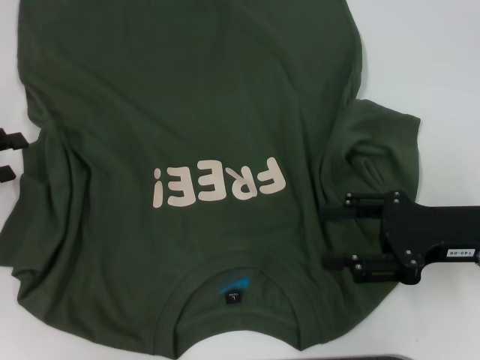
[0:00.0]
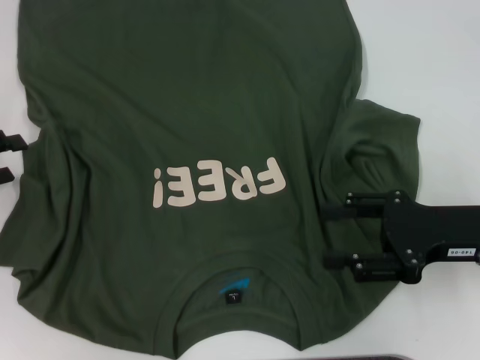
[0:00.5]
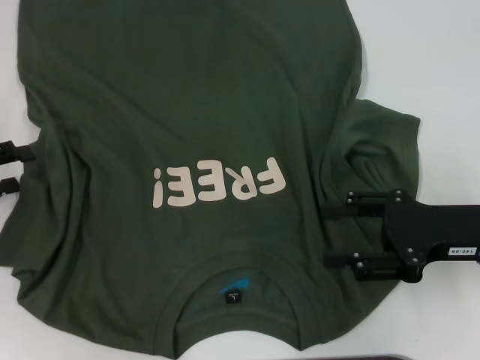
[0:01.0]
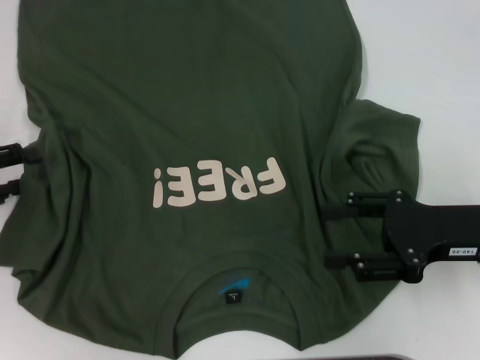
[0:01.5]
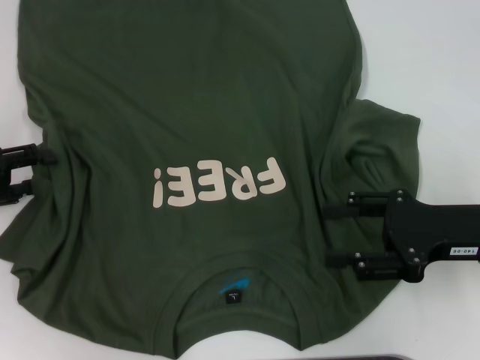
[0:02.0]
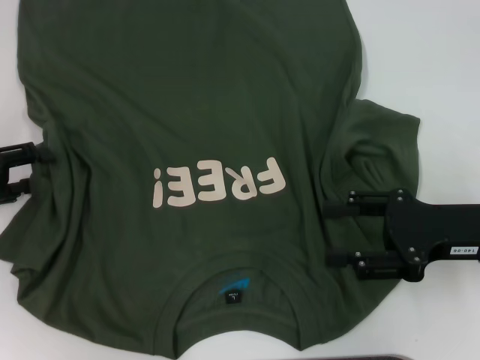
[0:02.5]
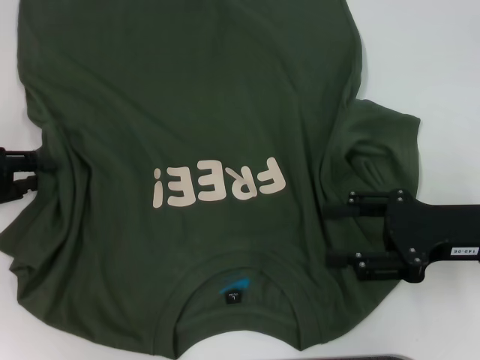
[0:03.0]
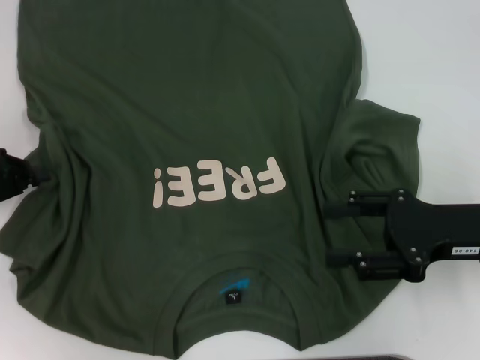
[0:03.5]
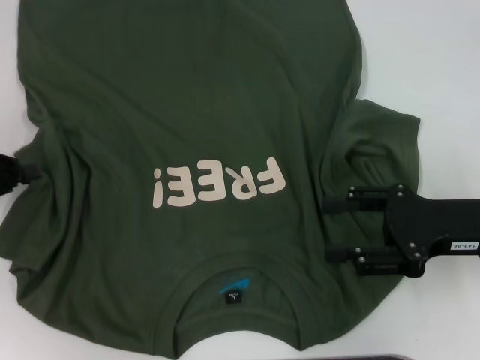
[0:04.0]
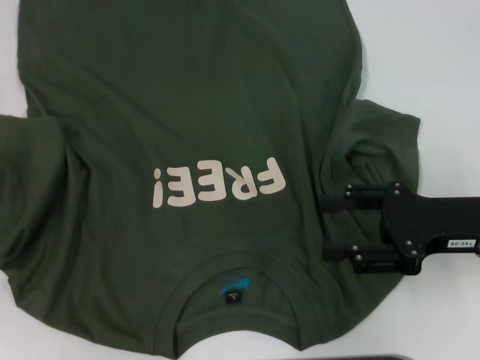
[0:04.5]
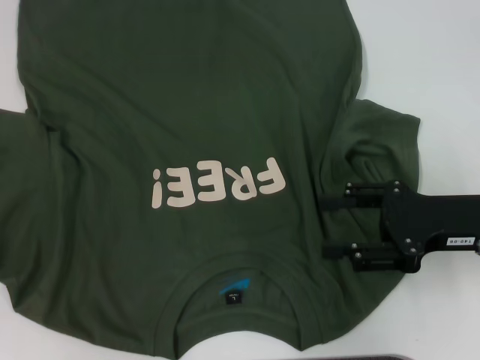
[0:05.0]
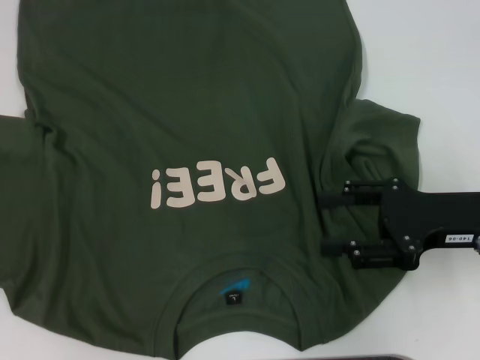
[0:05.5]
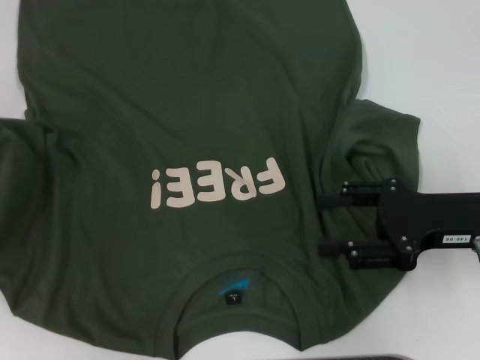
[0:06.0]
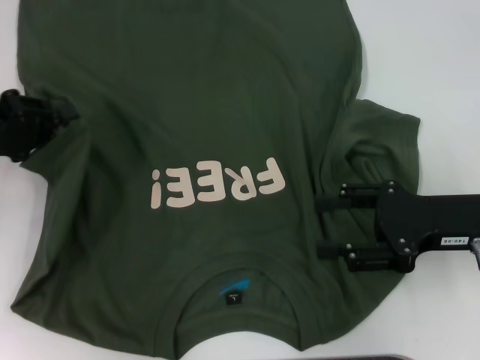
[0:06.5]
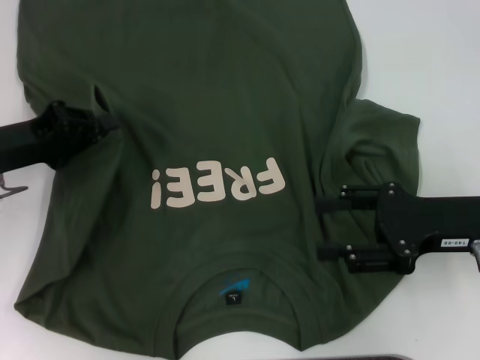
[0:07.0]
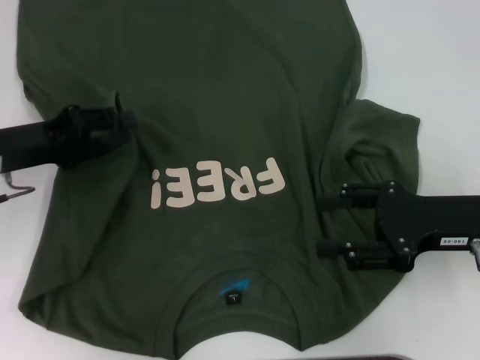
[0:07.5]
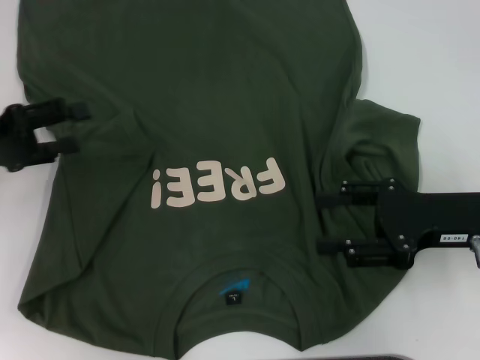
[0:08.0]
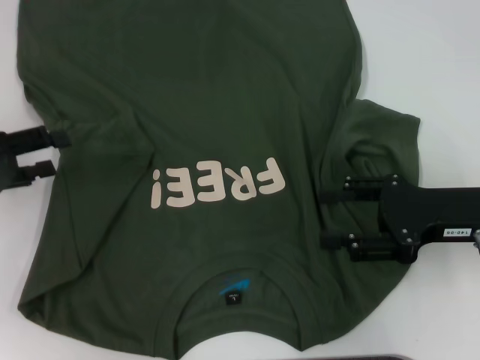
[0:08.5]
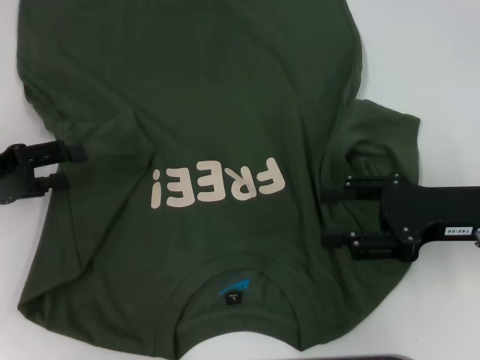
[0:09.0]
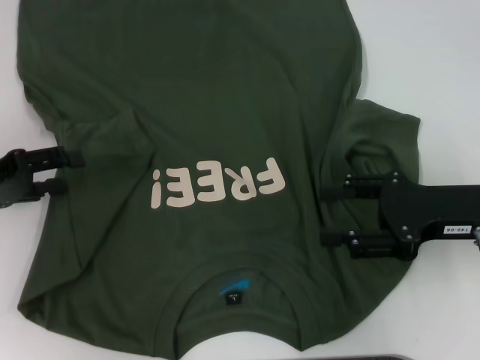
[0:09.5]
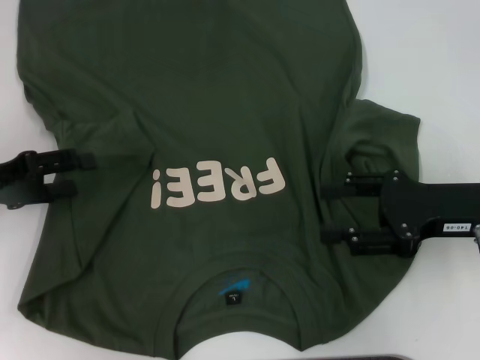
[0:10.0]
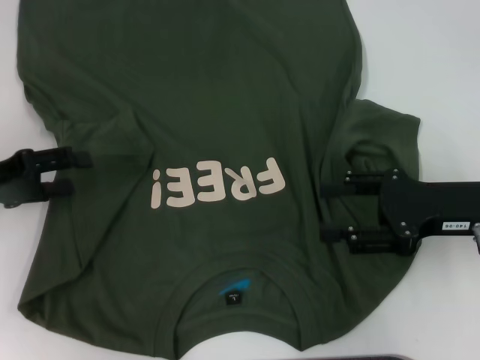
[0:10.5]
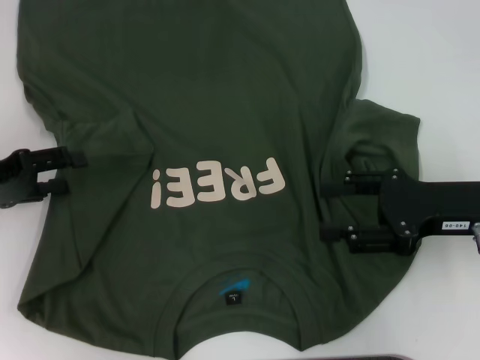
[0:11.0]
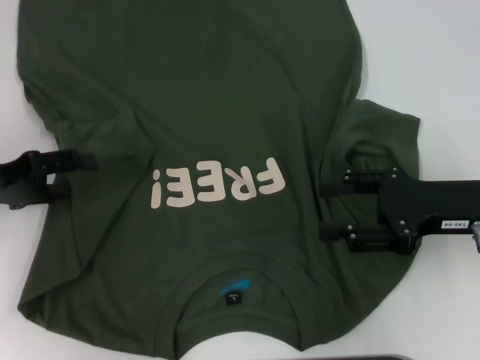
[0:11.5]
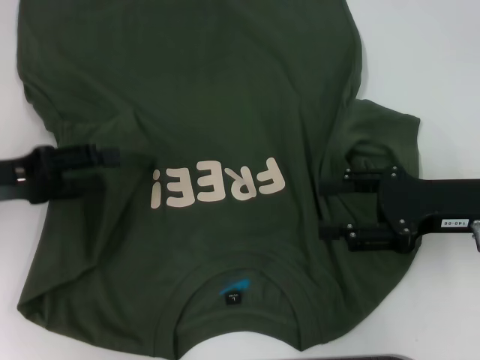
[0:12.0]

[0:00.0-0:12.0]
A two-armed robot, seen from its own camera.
Step, 0:00.0 to 0:08.0: Fold the bottom left sleeve with your left hand.
0:00.0 to 0:02.0: The grippers move only a little.
0:02.0 to 0:04.0: The left gripper closes up.
0:06.0 to 0:08.0: The left gripper is displaced to the right by some 5 cm, and opens.
0:08.0 to 0:12.0: The grippers make only small movements.

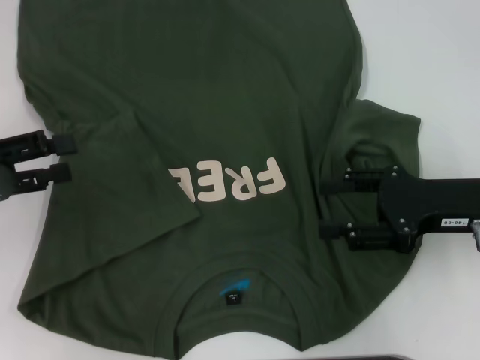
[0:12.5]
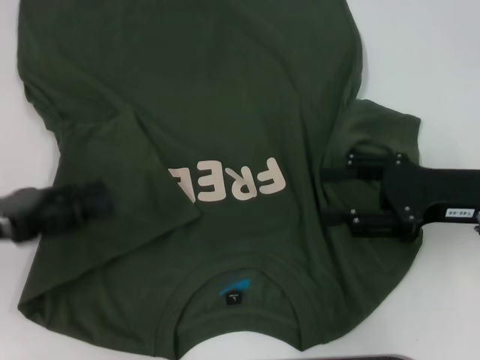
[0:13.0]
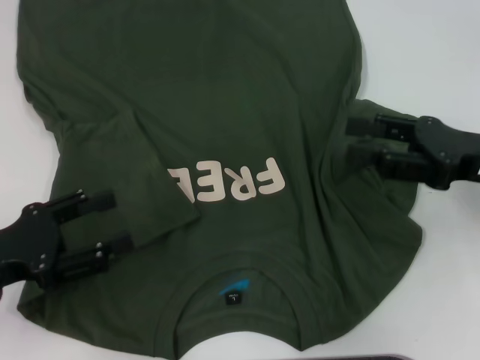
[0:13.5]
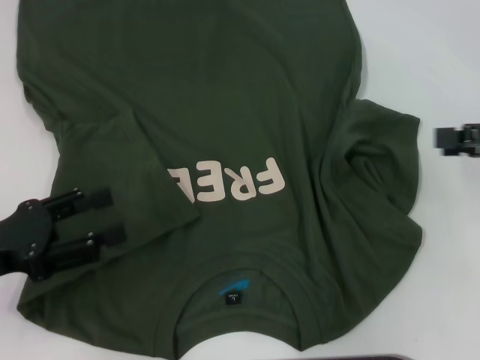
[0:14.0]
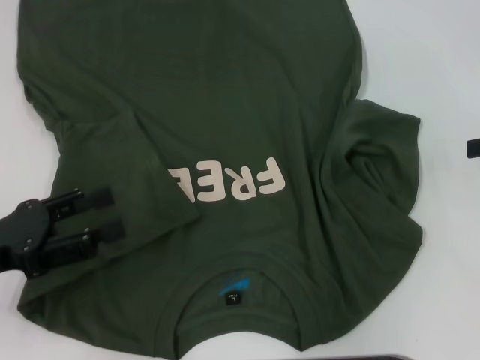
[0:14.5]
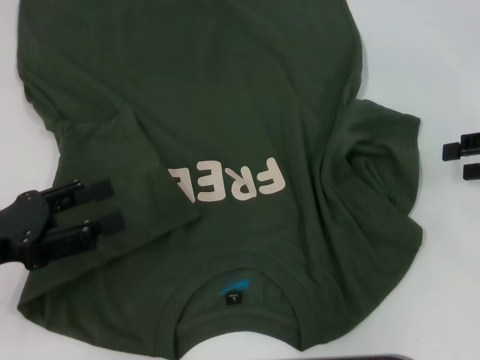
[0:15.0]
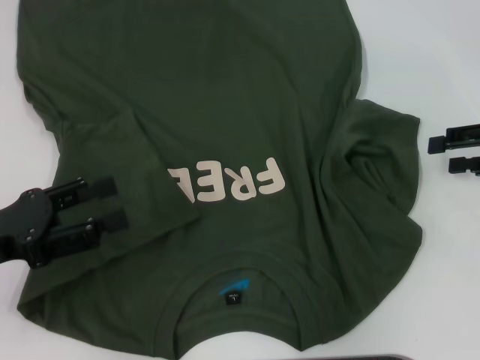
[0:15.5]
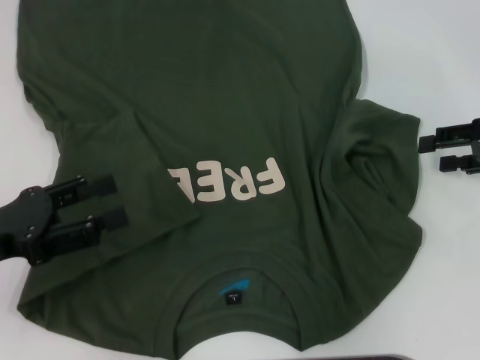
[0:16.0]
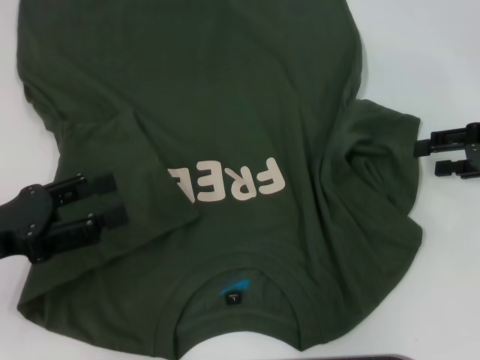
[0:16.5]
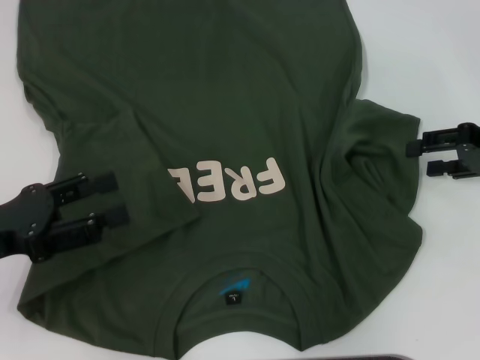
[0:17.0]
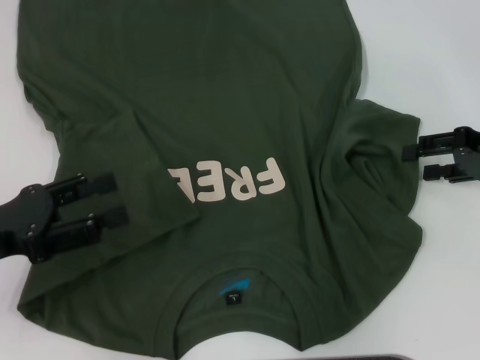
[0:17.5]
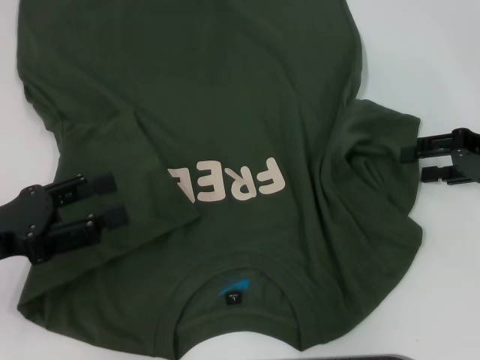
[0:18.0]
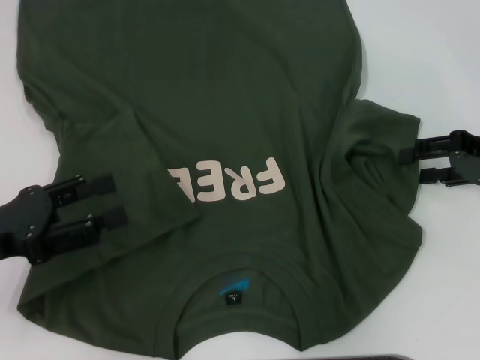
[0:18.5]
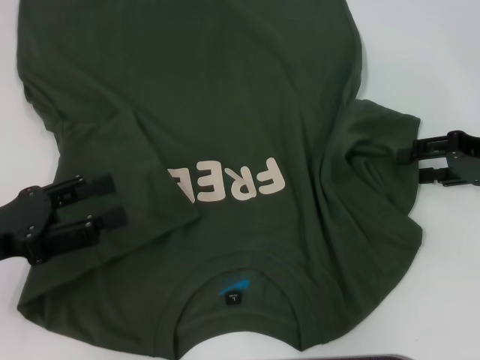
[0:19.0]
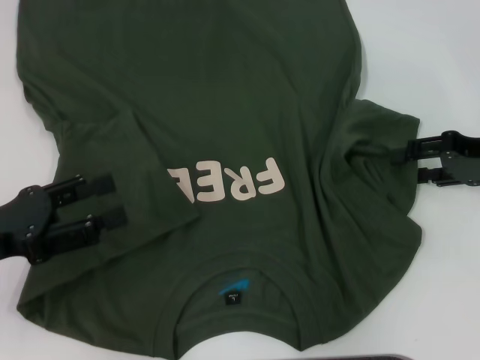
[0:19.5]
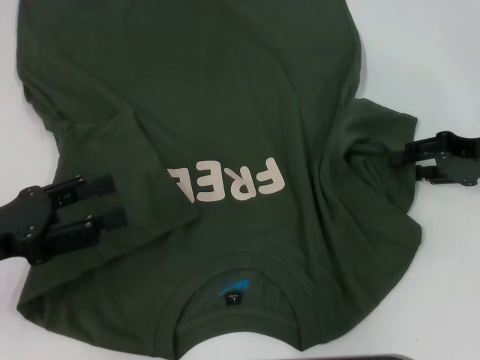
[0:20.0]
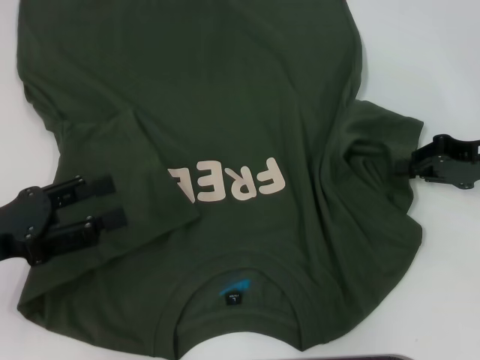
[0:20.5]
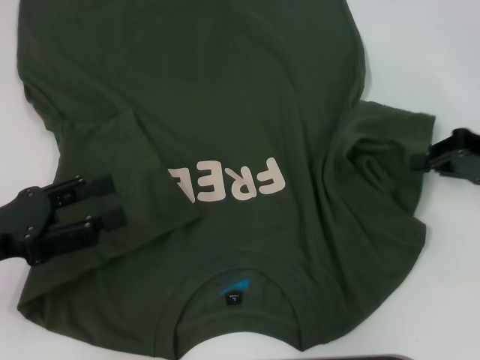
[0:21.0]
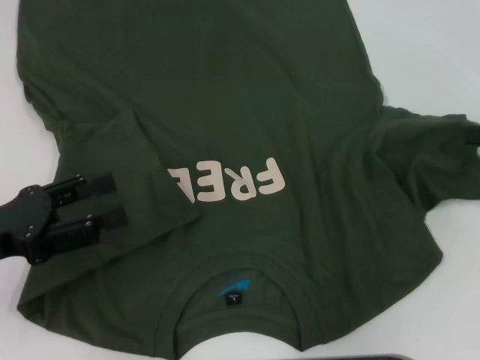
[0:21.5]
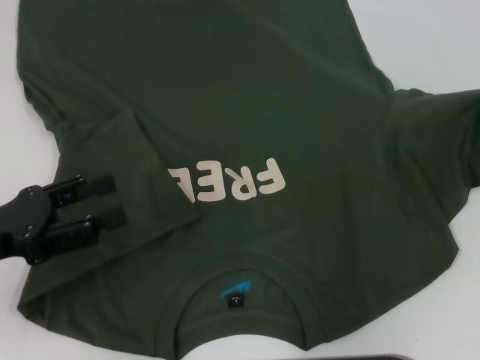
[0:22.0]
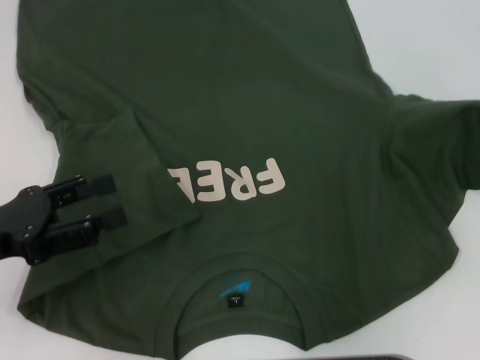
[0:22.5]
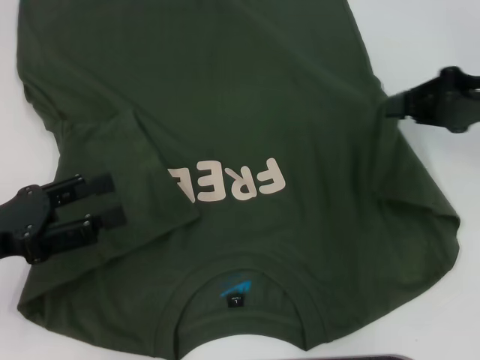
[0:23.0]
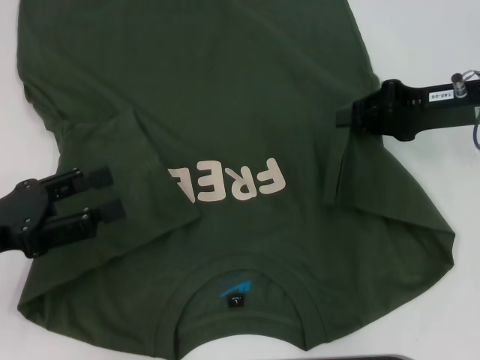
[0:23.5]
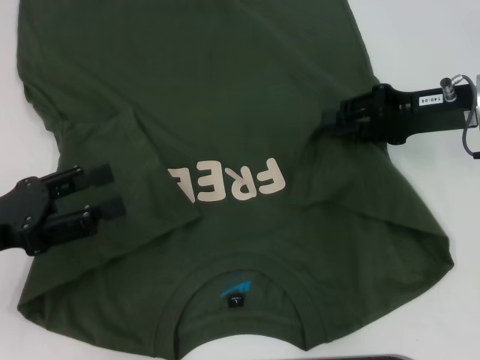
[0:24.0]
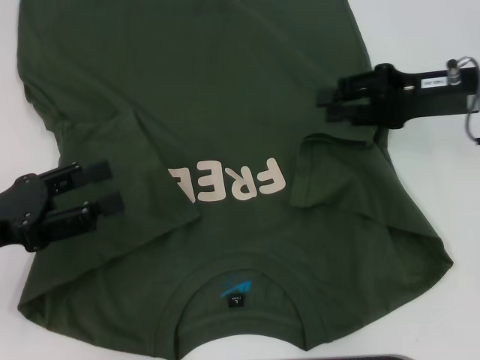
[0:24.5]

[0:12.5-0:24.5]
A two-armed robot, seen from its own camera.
0:12.5 to 0:14.5: The right gripper is displaced to the right and upward by approximately 15 cm. The left gripper travels backward by roughly 5 cm.
0:14.5 to 0:16.5: The right gripper ends up approximately 5 cm from where it was.
0:16.5 to 0:18.5: The grippers make only small movements.
0:18.5 to 0:20.5: The right gripper closes.
0:20.5 to 0:22.5: The right gripper goes some 10 cm upward and to the right.
0:22.5 to 0:24.5: The right gripper goes some 15 cm to the left and forward, and opens its fingers.

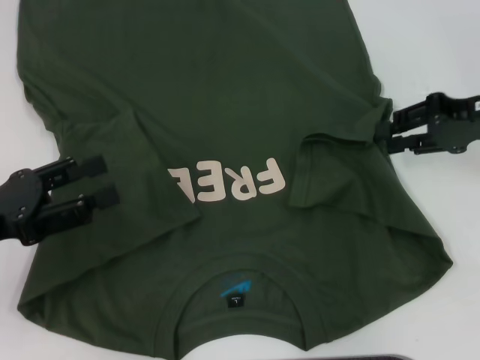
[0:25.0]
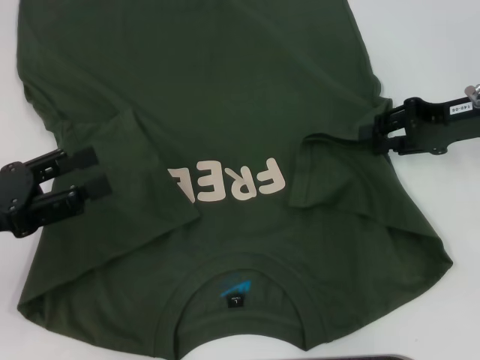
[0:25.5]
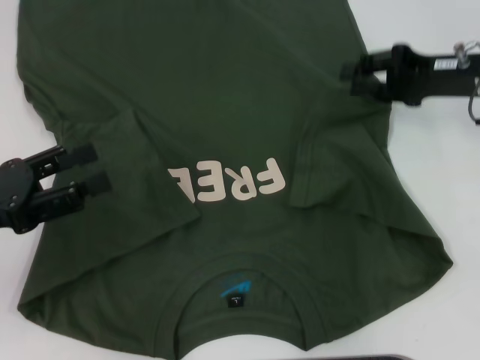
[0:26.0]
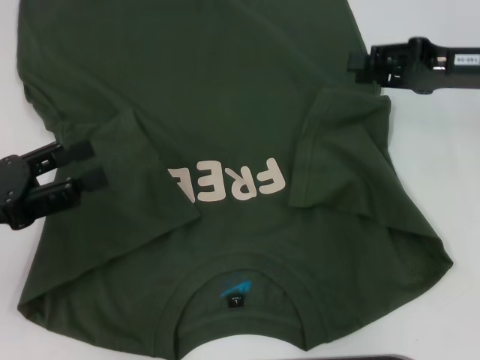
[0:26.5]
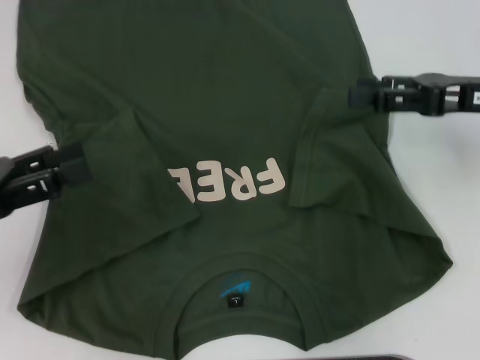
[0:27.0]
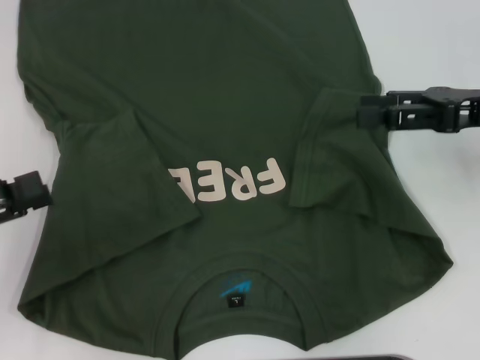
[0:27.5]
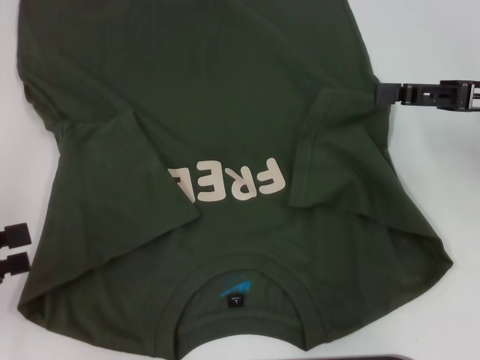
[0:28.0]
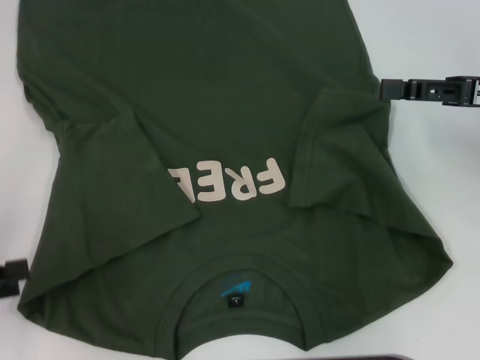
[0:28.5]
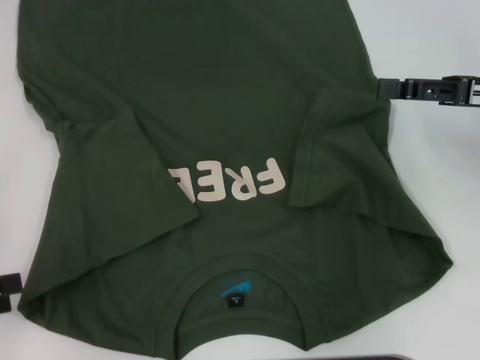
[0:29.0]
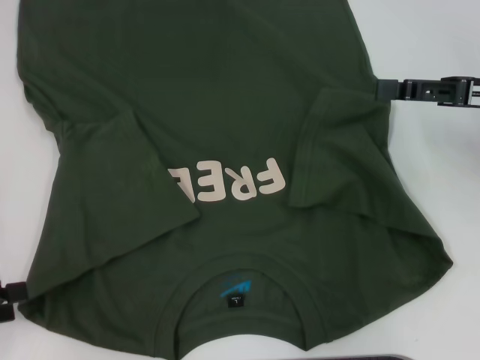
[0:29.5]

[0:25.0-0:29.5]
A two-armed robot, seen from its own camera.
0:27.0 to 0:29.5: The left gripper is displaced to the left and backward by about 10 cm.
